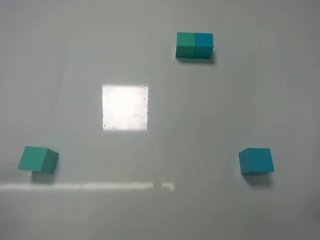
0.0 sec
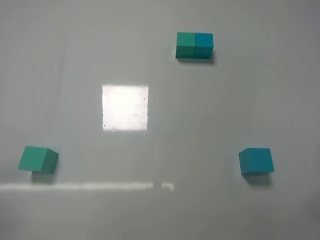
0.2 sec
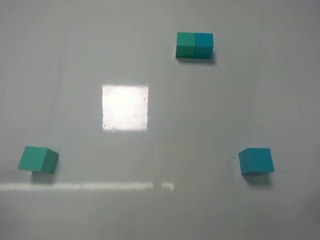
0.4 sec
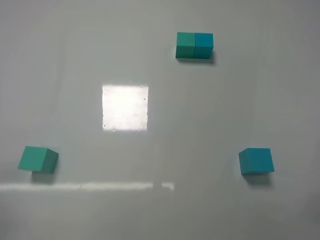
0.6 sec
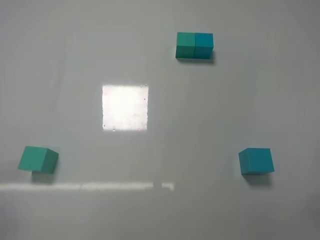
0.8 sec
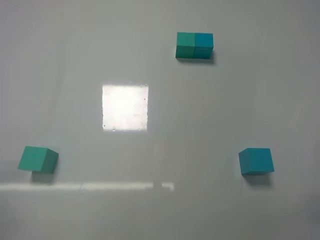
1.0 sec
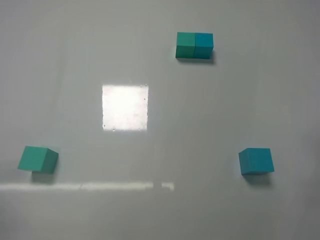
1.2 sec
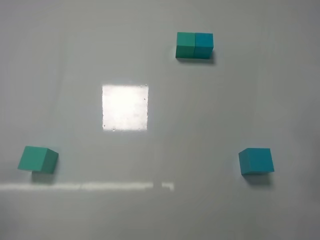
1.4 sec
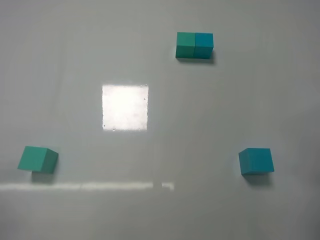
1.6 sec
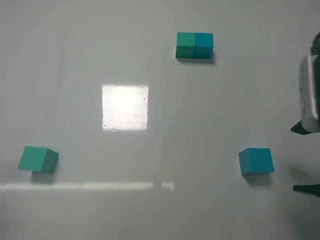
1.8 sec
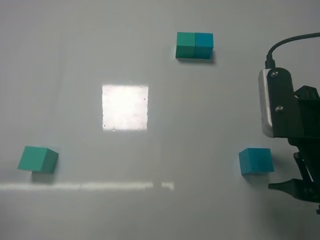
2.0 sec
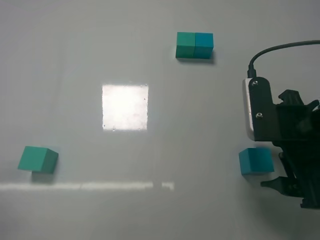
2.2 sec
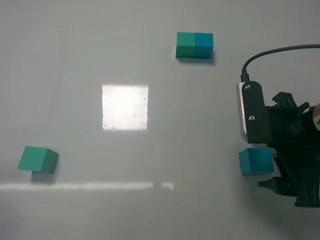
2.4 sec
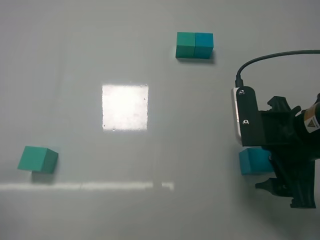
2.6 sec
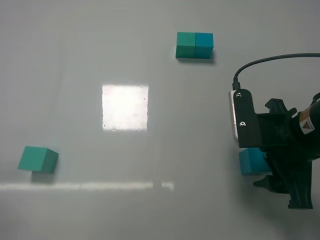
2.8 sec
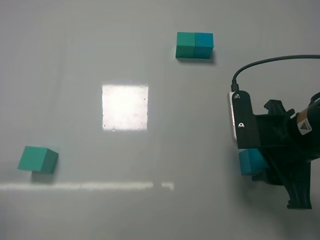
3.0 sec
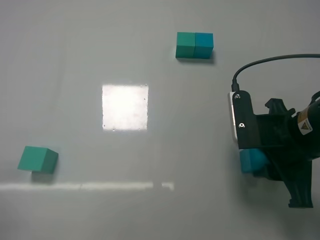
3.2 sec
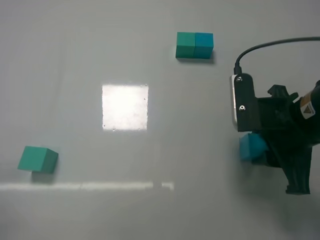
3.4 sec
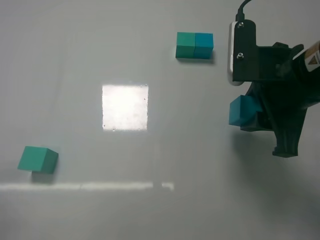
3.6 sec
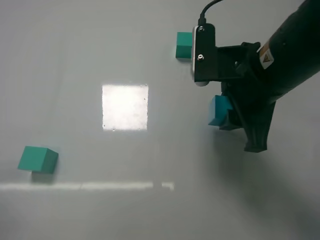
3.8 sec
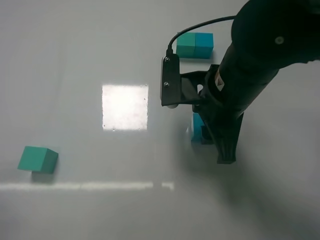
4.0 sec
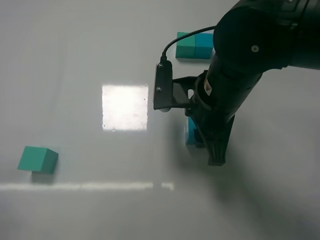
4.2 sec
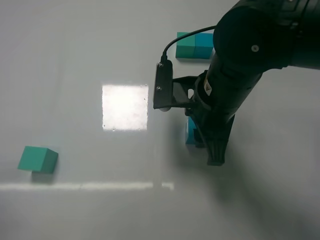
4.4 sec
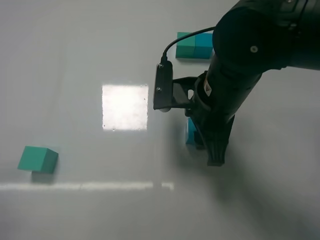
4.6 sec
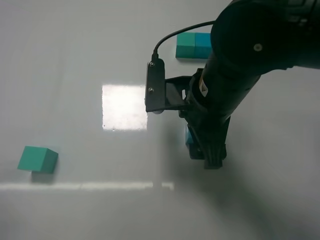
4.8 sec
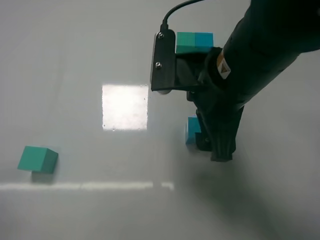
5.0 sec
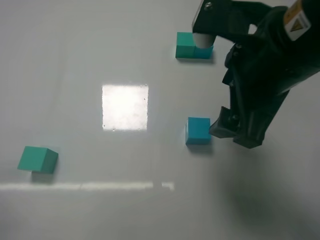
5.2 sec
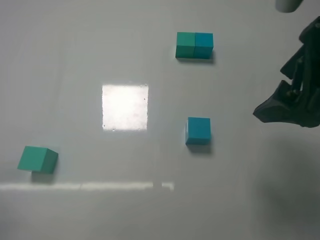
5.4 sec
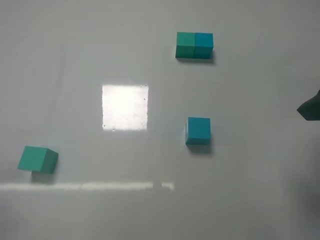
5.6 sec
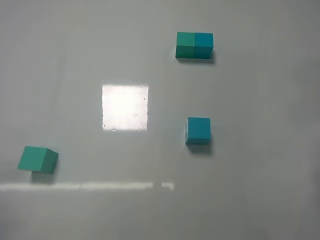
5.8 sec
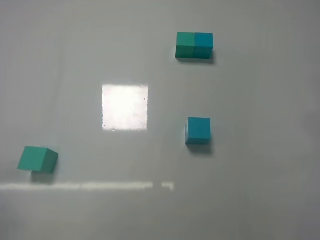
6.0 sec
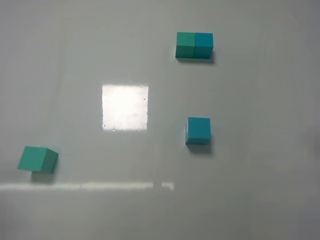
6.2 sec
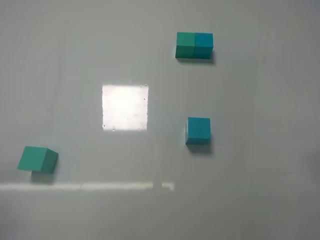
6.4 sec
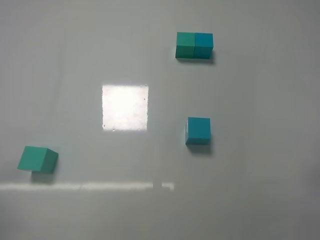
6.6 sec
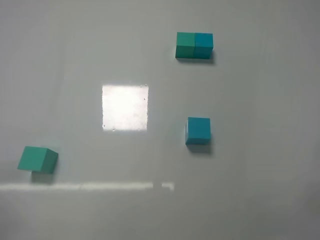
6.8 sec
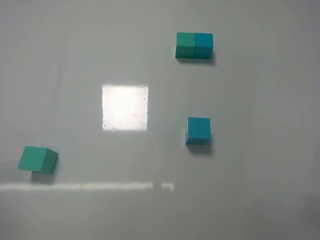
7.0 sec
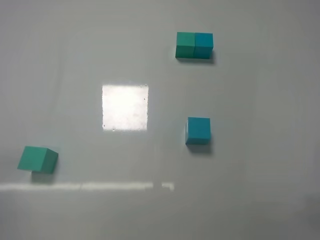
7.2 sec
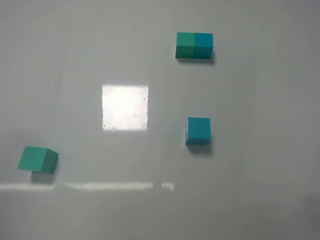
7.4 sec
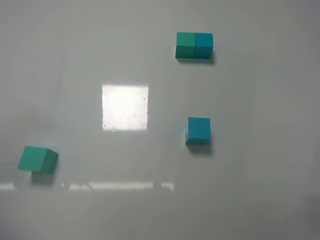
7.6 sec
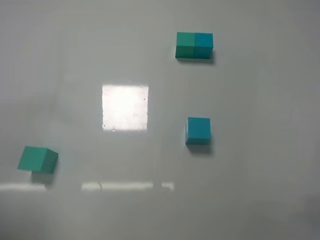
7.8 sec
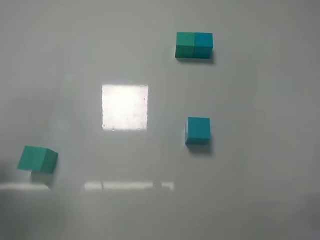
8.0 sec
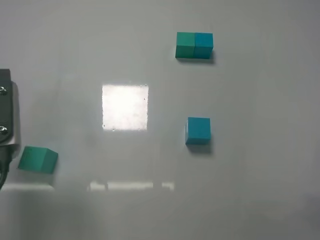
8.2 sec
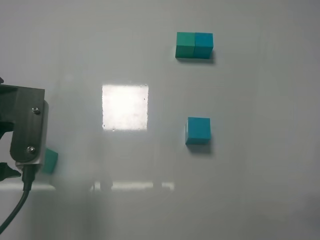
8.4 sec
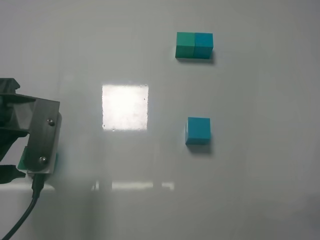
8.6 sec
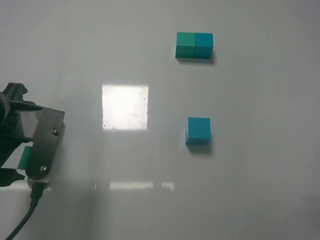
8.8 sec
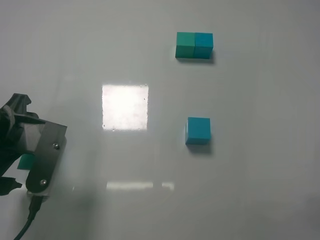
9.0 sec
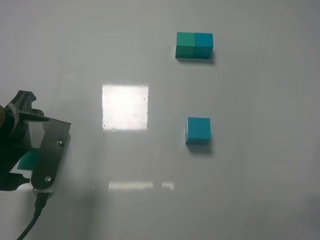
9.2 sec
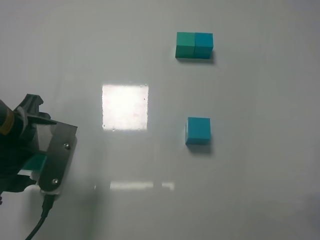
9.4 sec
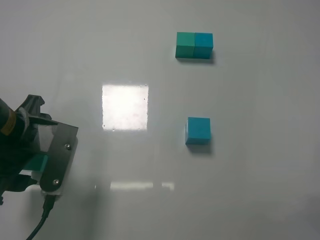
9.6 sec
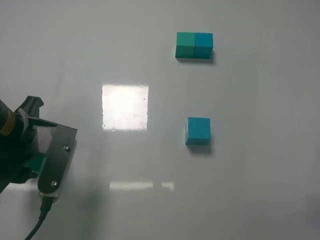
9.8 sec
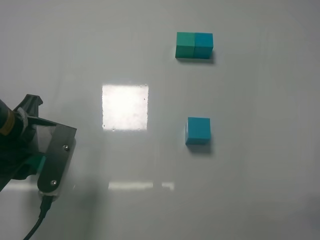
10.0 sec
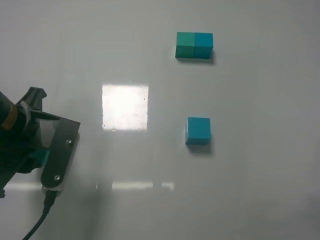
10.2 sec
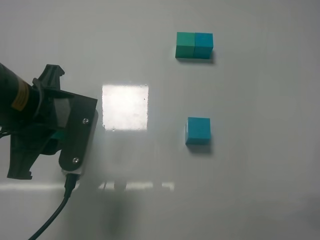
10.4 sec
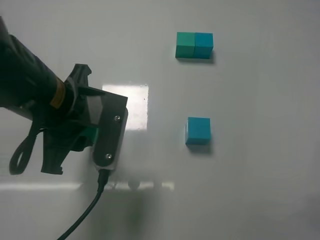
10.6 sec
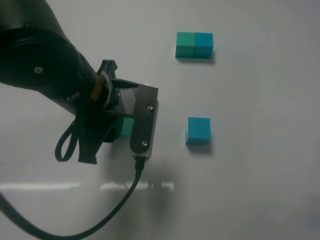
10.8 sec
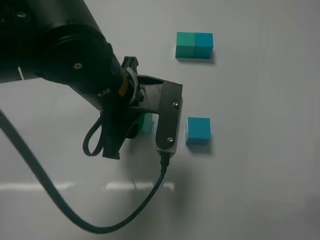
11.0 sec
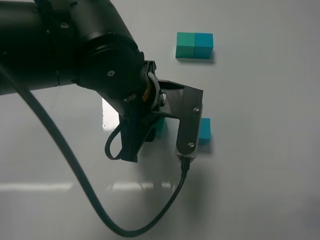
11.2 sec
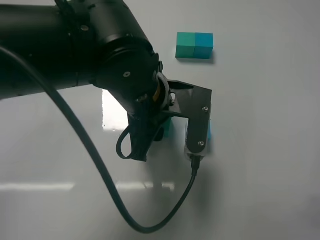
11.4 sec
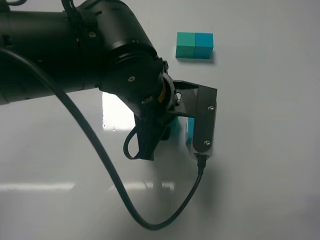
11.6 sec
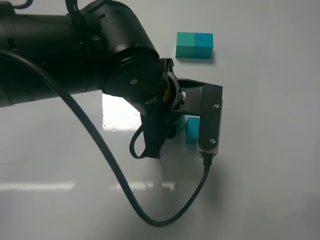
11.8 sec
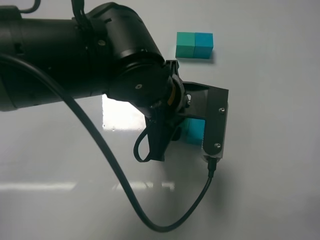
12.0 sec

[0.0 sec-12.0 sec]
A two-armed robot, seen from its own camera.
Task of the whole recording: According to the building block template in front, assemble the scattered blocks together.
Step, 0.0 sec to 3.0 sec: Grasp the blue block with right gripper.
Step, 3.2 sec to 4.8 sec: Adjust the position of the cube with the right gripper.
Step, 5.0 sec to 9.8 sec: Grasp the green block with left gripper.
1.6 sec to 3.0 sec: The right gripper goes roughly 10 cm forward, to the left and downward, and closes up.
3.0 sec to 4.4 sec: The right gripper shifts about 10 cm to the left.
4.4 sec to 6.0 sec: The right gripper heads to the right and backward, covering roughly 25 cm, and opens.
7.6 sec to 9.0 sec: The left gripper is displaced to the right, forward and downward by roughly 15 cm.
9.0 sec to 10.4 sec: The left gripper is displaced to the right by roughly 5 cm, and closes its fingers.
10.4 sec to 12.0 sec: The left gripper goes roughly 15 cm to the right.

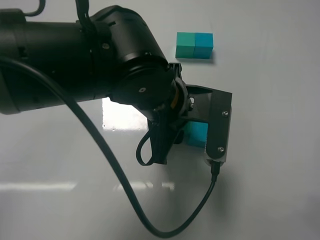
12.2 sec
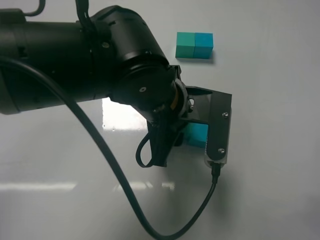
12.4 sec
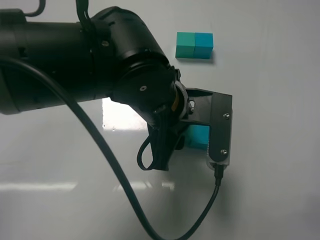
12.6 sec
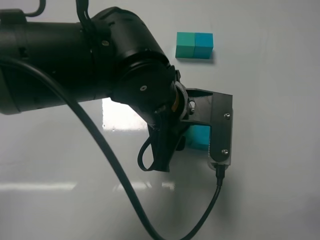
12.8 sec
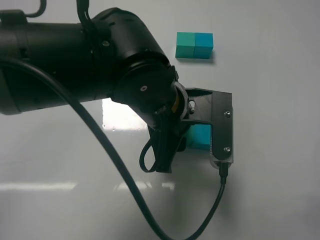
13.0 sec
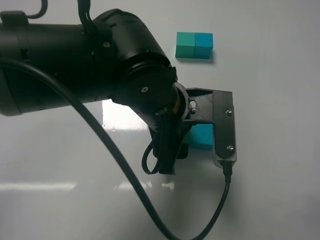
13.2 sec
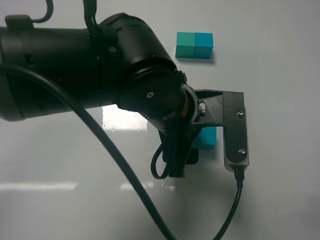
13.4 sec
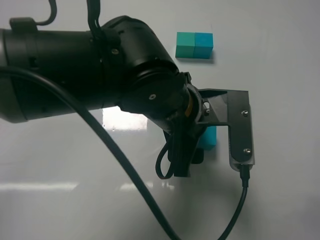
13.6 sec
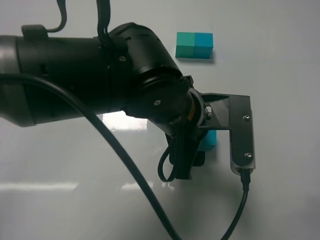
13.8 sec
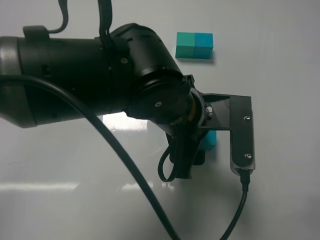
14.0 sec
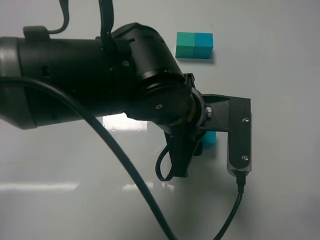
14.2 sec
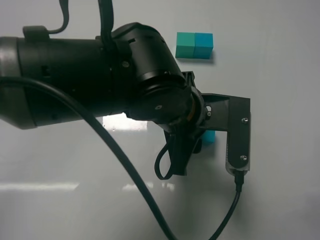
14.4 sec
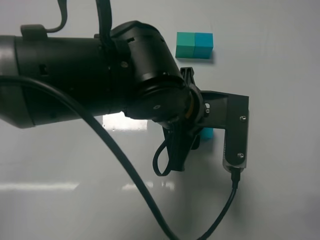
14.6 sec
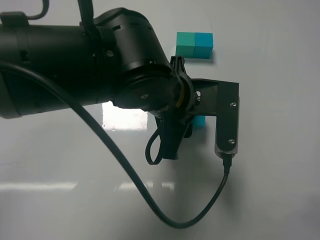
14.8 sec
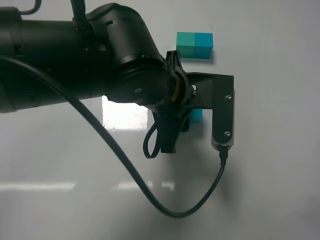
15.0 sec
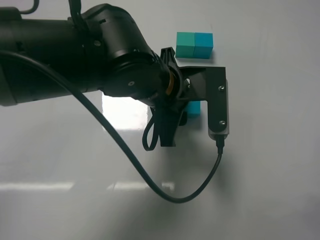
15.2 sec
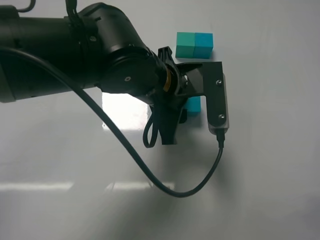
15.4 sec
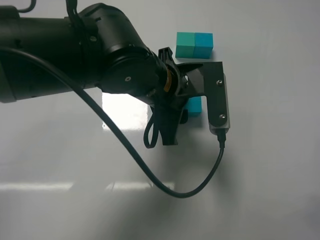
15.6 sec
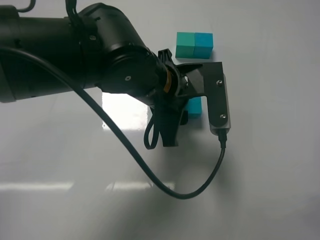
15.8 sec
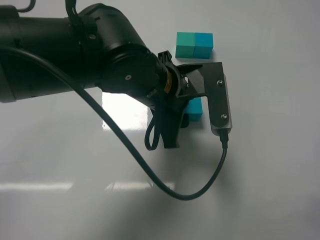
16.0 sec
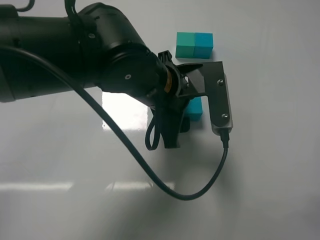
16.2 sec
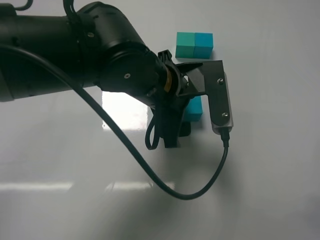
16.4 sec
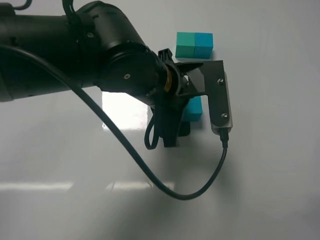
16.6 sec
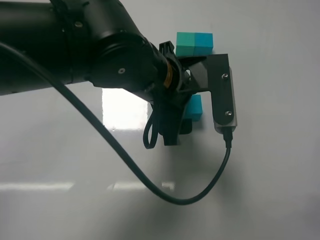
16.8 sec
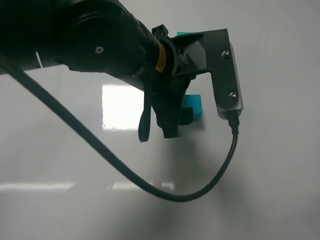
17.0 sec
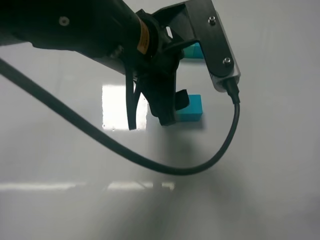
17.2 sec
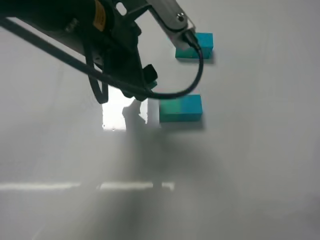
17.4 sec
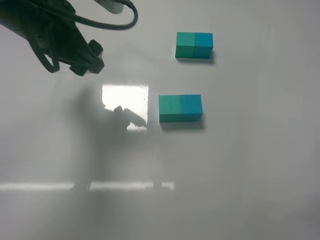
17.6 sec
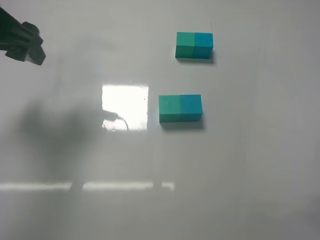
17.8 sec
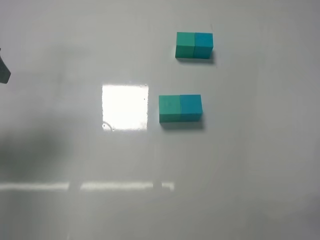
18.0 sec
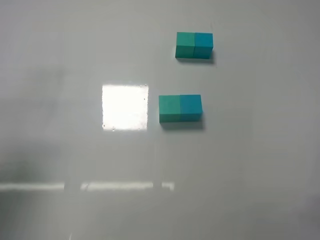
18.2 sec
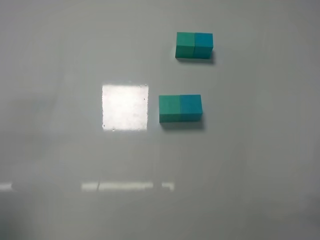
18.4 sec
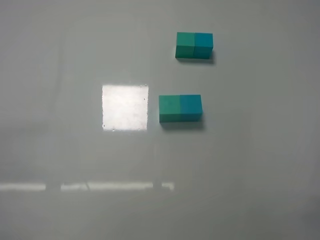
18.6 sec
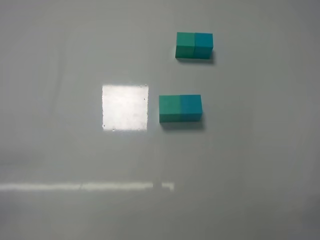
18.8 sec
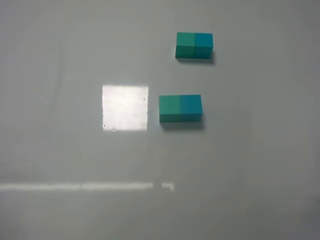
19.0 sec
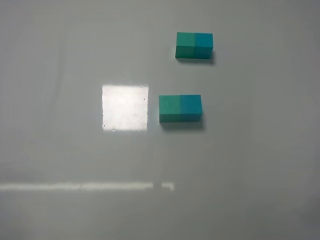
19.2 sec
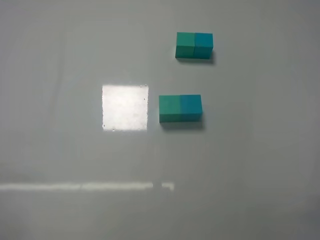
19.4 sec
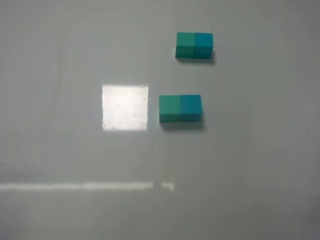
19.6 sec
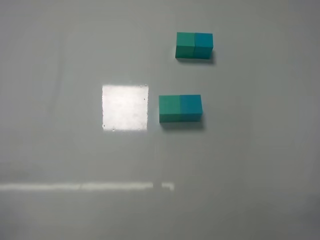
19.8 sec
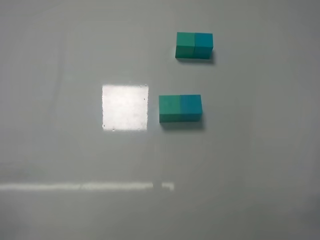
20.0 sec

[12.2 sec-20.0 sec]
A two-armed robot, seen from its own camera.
Task of the whole recording: According to the building block template in front, assemble the scattered blocks together.
Step, 13.6 sec to 16.4 sec: Put the blue cube and green cube in the center of the table with the left gripper.
12.2 sec to 13.8 sec: The left gripper opens.
13.8 sec to 15.4 sec: The left gripper changes place by some 5 cm, and closes its fingers.
15.4 sec to 16.8 sec: The left gripper opens.
16.8 sec to 18.4 sec: The left gripper goes roughly 35 cm to the left and backward.
18.4 sec to 20.0 sec: The left gripper is displaced backward and downward by about 15 cm.
